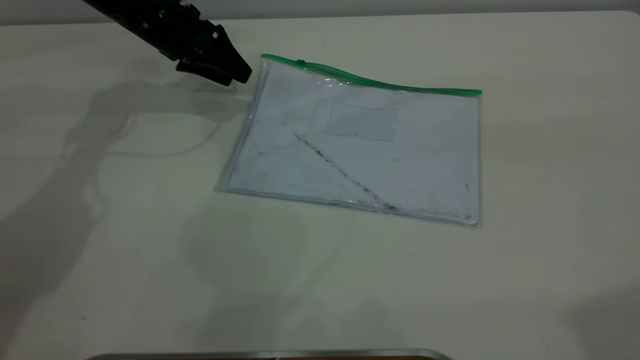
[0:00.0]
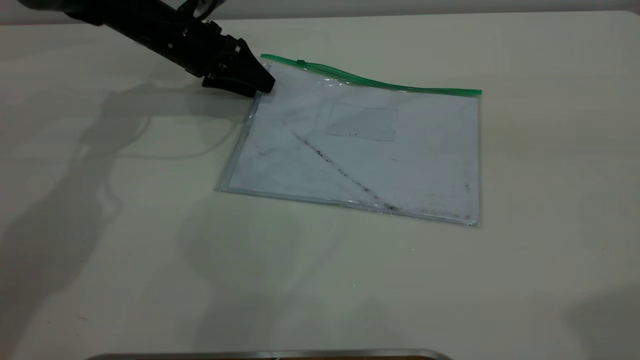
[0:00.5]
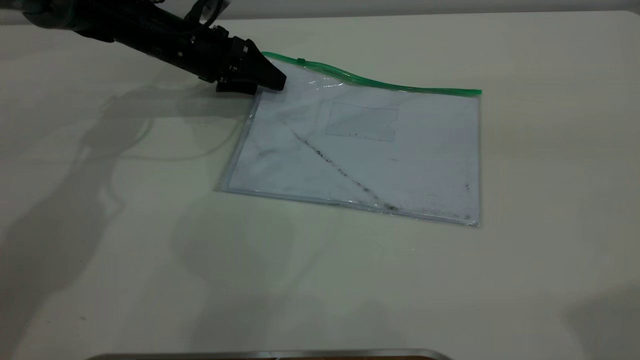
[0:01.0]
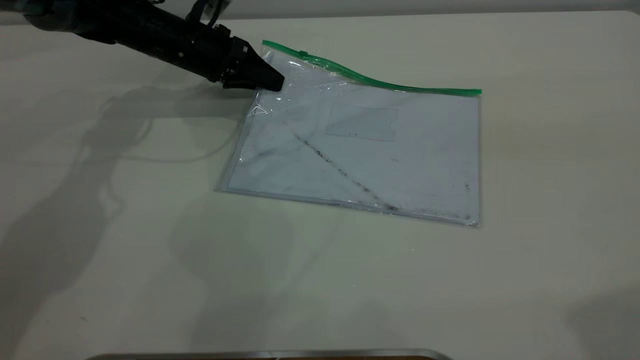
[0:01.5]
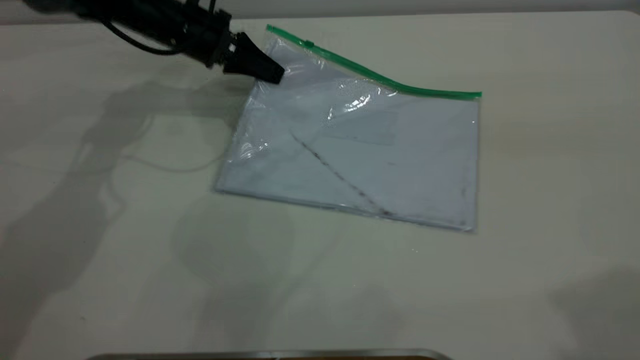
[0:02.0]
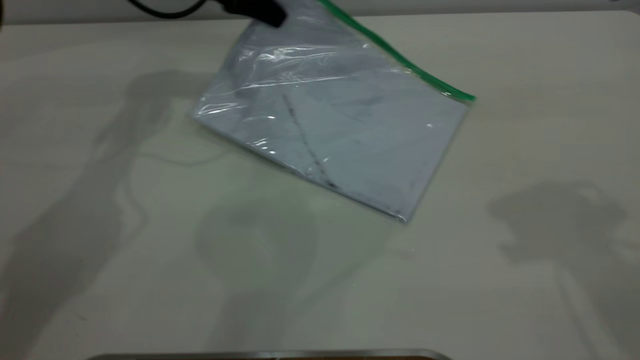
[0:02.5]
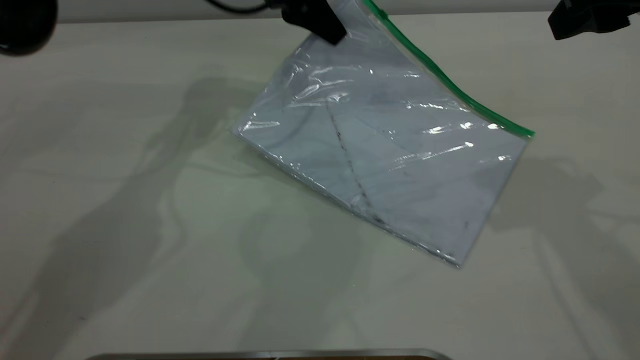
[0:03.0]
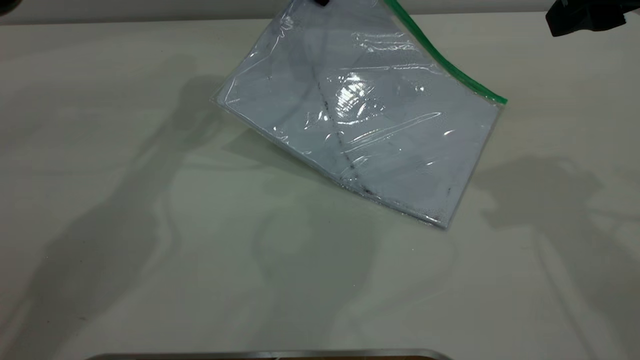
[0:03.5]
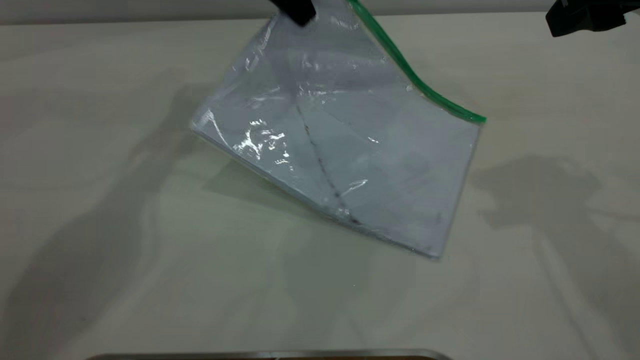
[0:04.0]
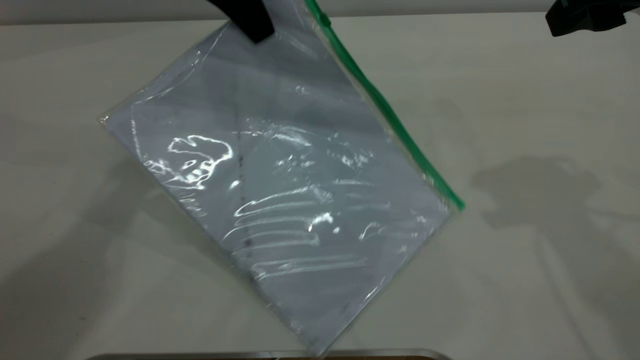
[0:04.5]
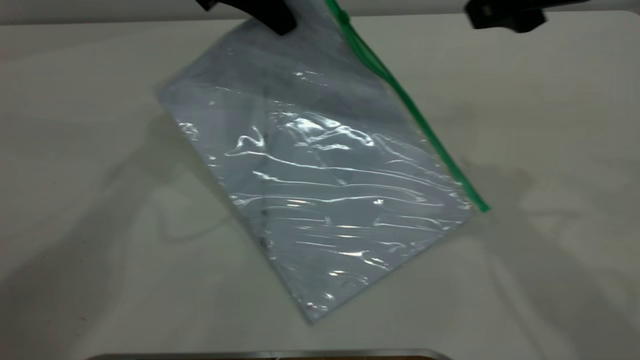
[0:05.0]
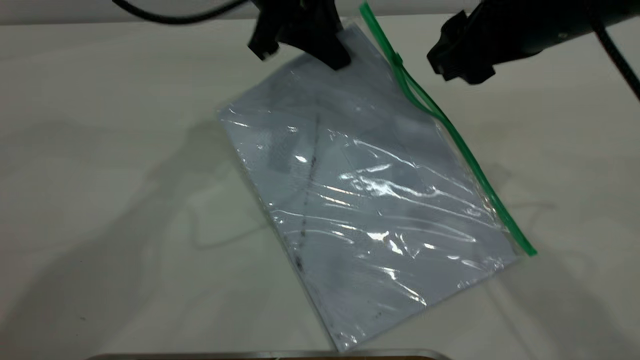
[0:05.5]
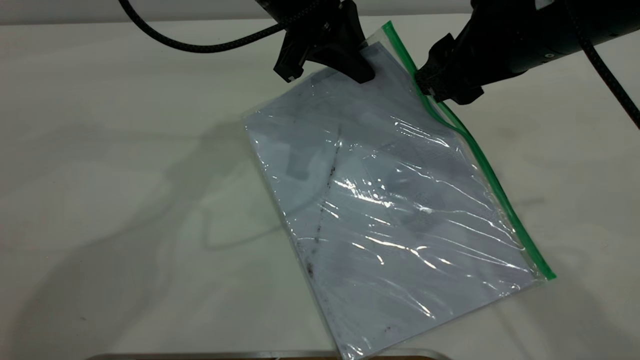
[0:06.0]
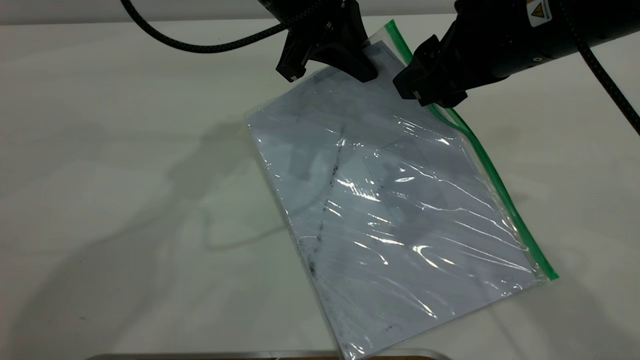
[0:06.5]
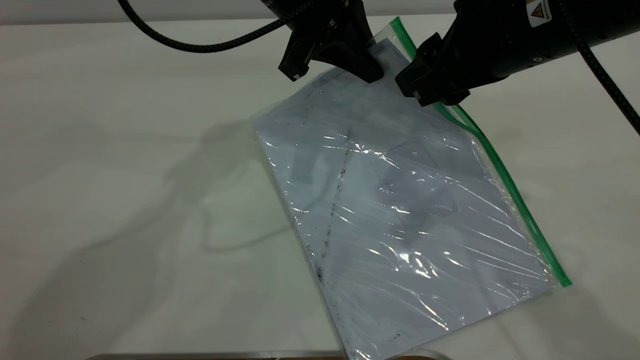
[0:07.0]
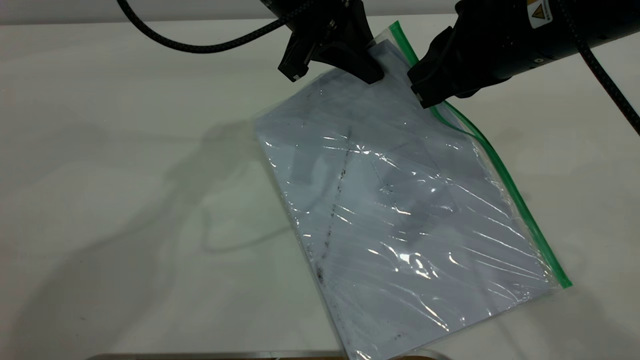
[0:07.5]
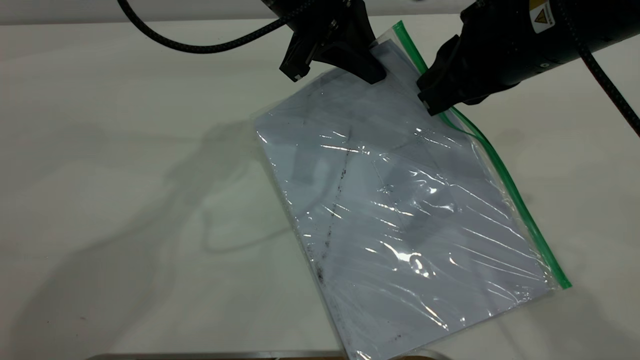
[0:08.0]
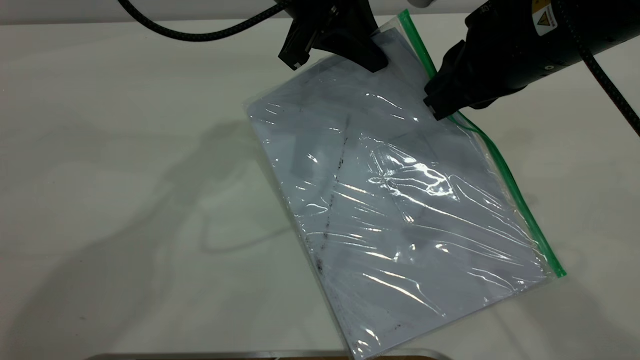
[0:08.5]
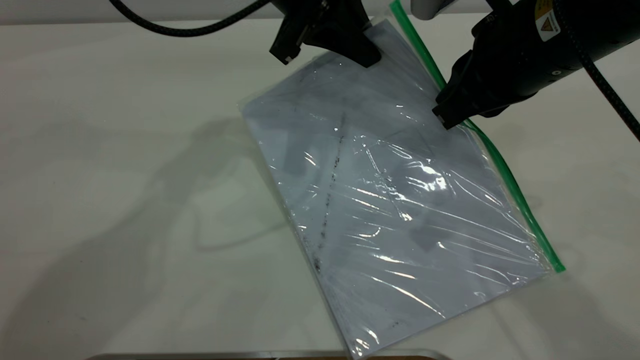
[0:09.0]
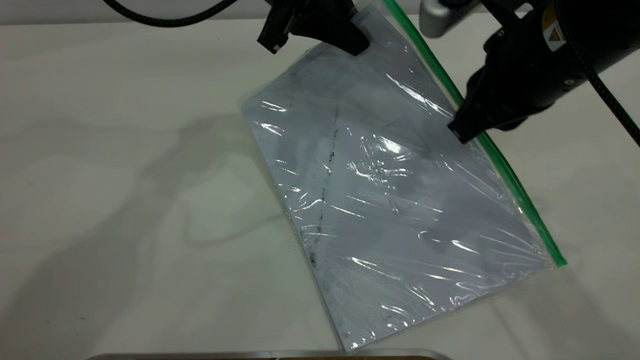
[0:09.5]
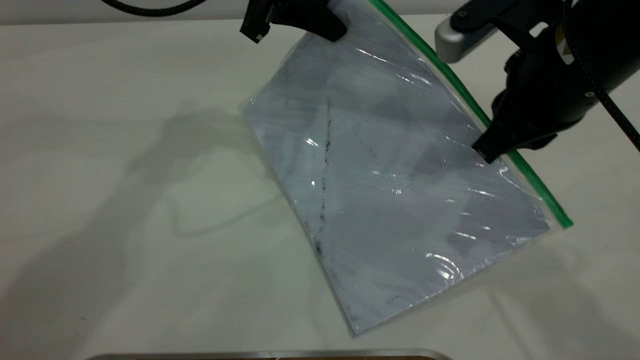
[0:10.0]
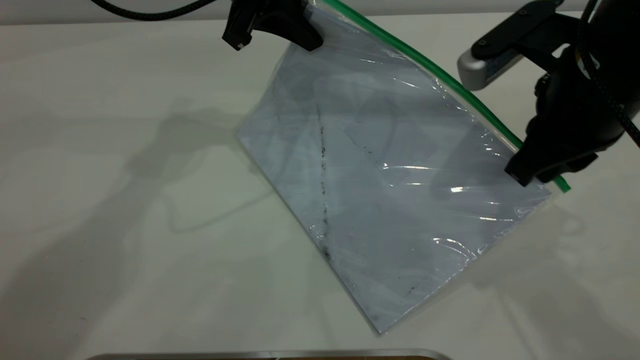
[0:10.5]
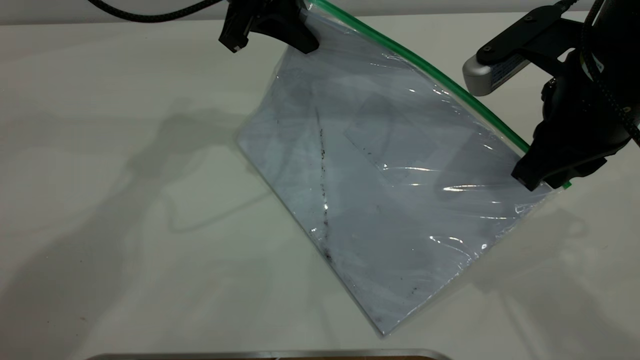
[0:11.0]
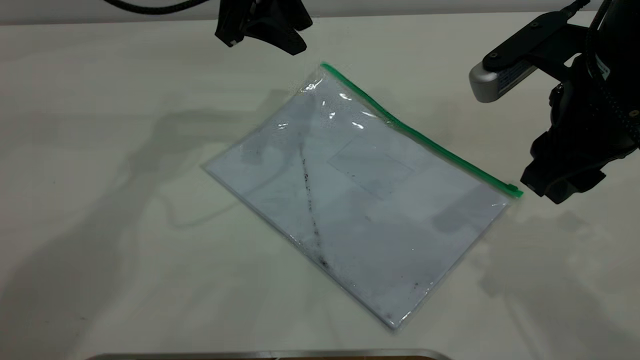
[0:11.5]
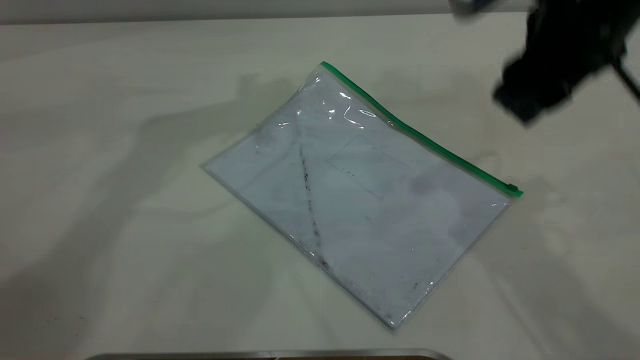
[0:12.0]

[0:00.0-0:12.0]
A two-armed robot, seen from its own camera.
Step, 0:00.0 to 0:02.0: Pick up the transparent plastic bag with the left gripper.
Step, 0:02.5 to 0:10.5: Pulling up the zipper on the transparent plastic bag with the right gripper to close it.
0:00.0 to 0:02.0: The left gripper closes up.
0:02.0 to 0:04.0: The right gripper is displaced forward and downward by approximately 20 cm. Meanwhile the left gripper heads upward and to the right, covering some 15 cm.
0:04.0 to 0:06.0: The left gripper moves backward, downward and to the right, approximately 10 cm. The right gripper moves to the left and downward, about 10 cm.
0:06.0 to 0:08.0: The right gripper closes up.
0:08.0 to 0:10.0: The left gripper travels to the left by roughly 5 cm.
0:10.0 to 0:12.0: The left gripper shifts roughly 10 cm upward, and opens its fingers, while the right gripper moves upward, some 5 cm, and opens its fingers.

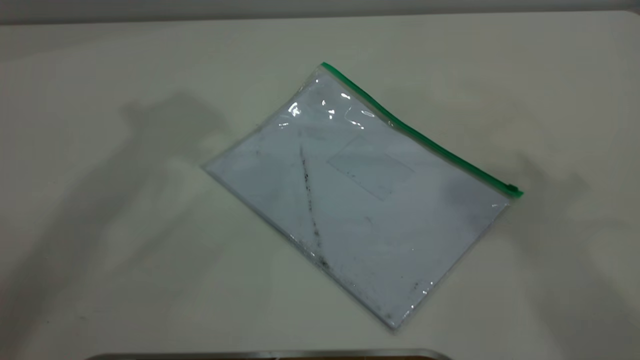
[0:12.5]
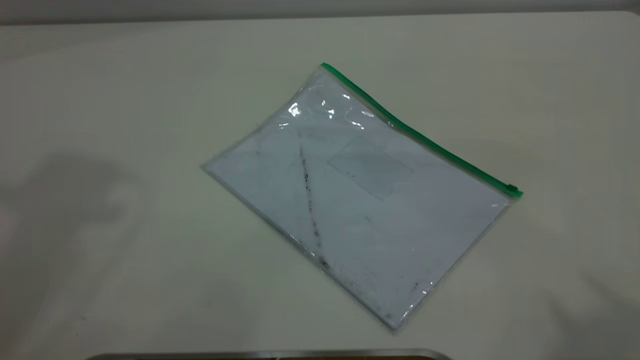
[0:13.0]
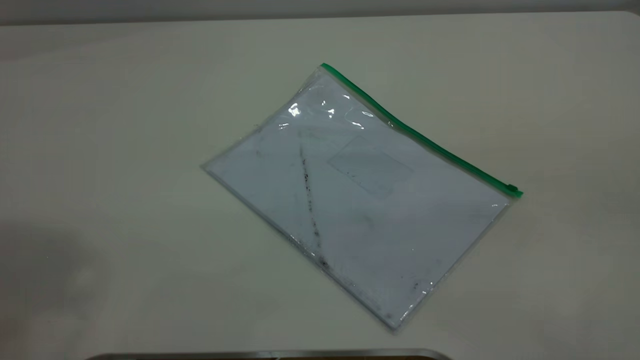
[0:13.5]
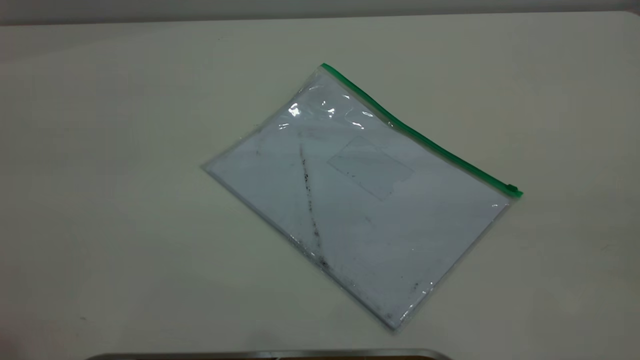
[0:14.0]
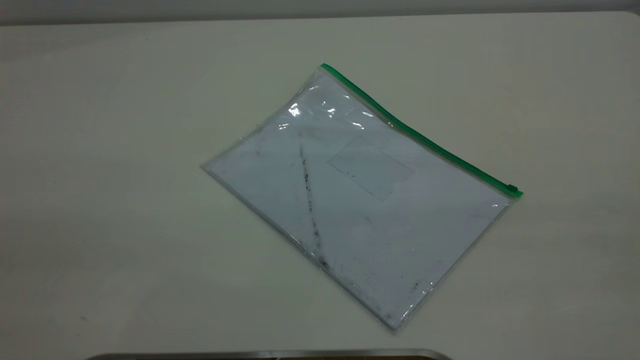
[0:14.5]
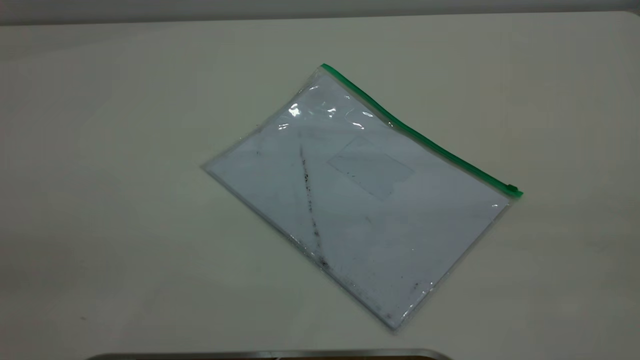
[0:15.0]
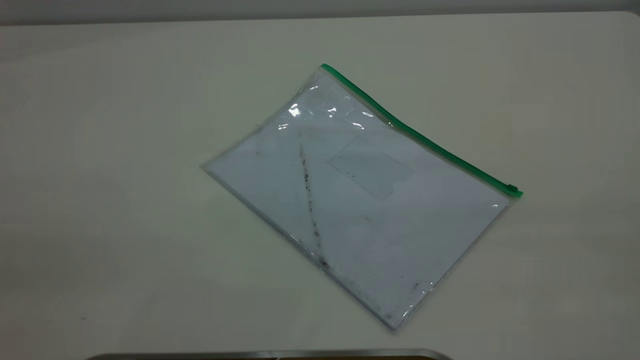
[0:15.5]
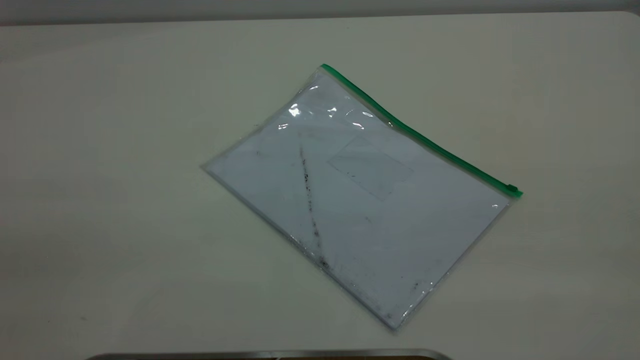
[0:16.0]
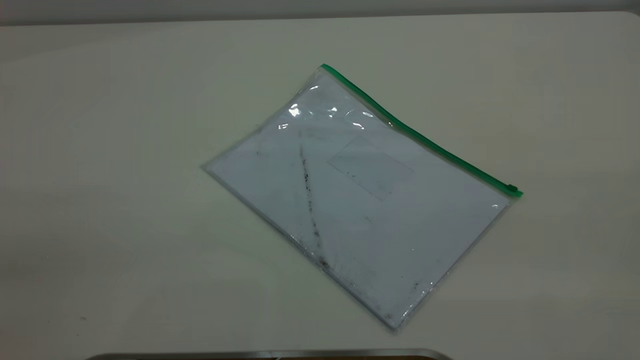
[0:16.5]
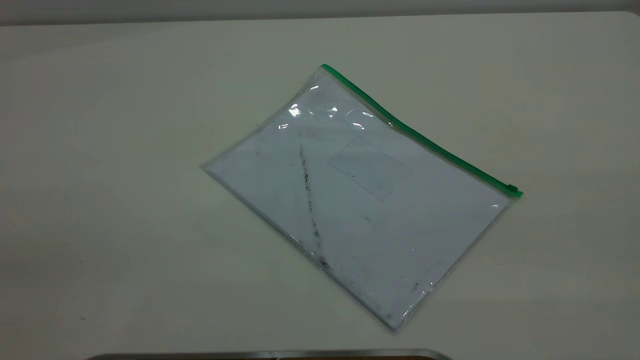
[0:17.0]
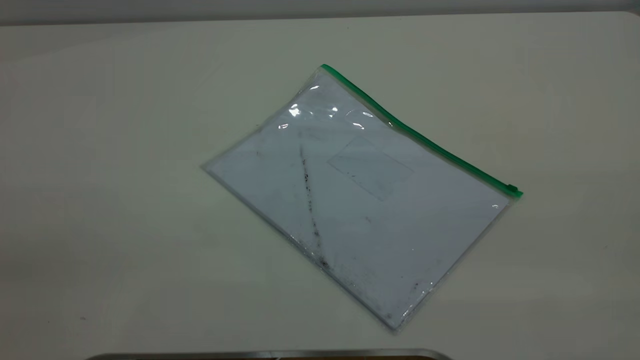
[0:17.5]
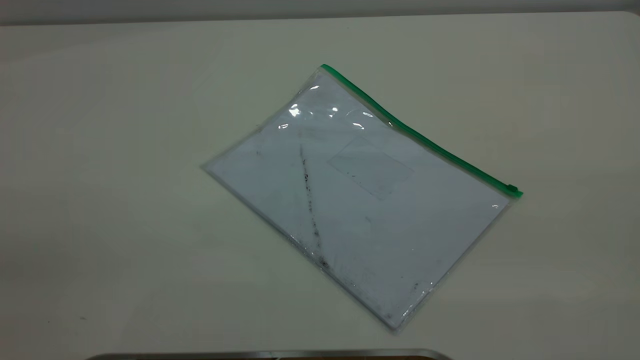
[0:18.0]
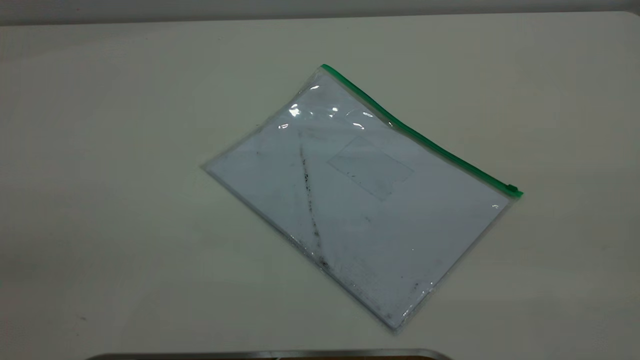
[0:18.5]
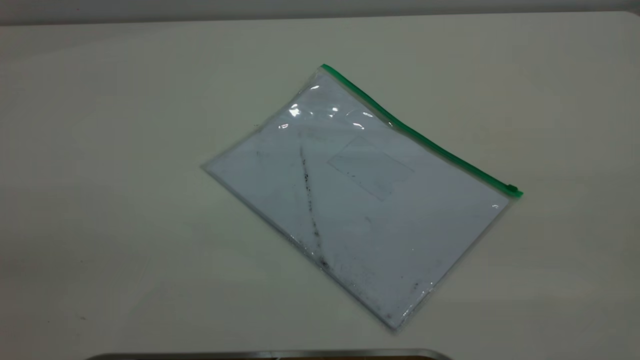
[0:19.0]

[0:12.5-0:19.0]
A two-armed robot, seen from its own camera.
0:17.0 to 0:19.0: The two grippers keep their place.

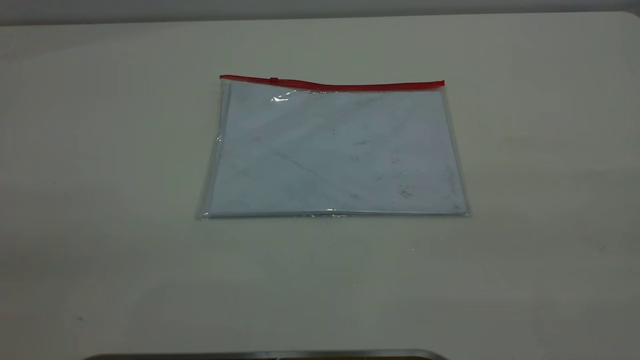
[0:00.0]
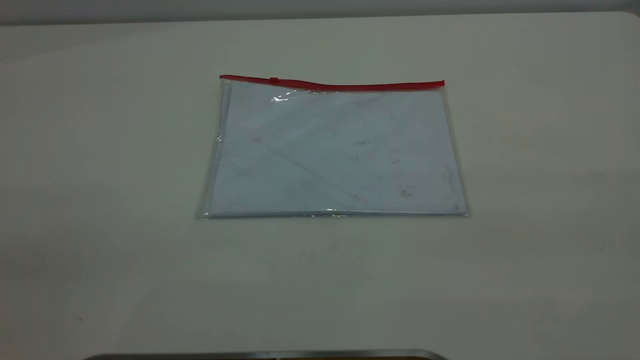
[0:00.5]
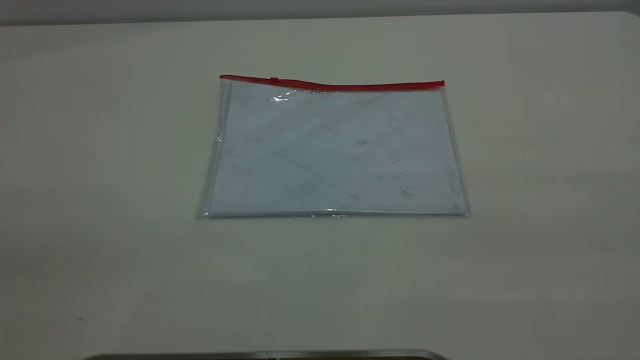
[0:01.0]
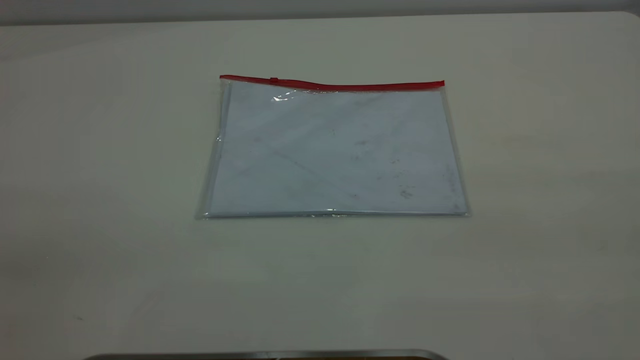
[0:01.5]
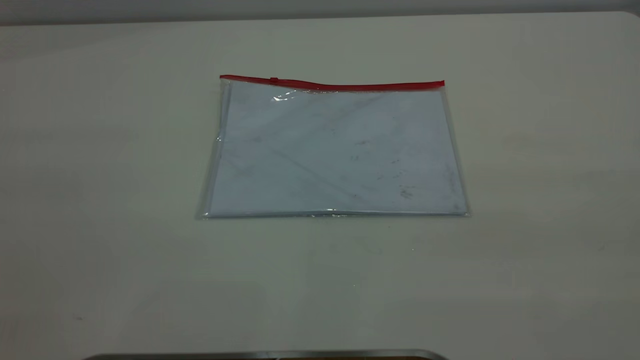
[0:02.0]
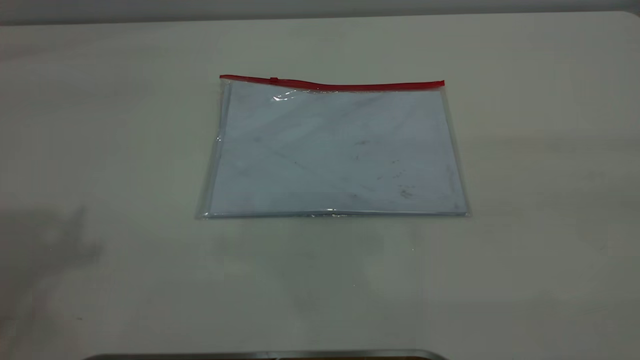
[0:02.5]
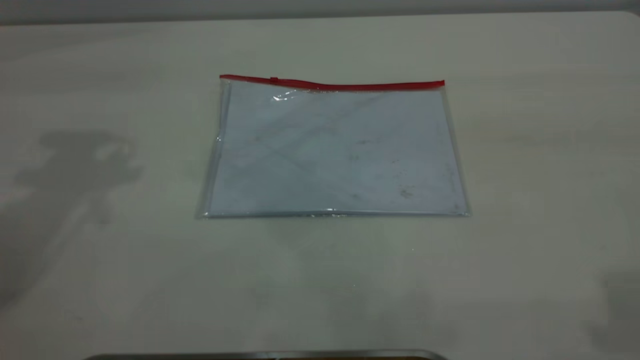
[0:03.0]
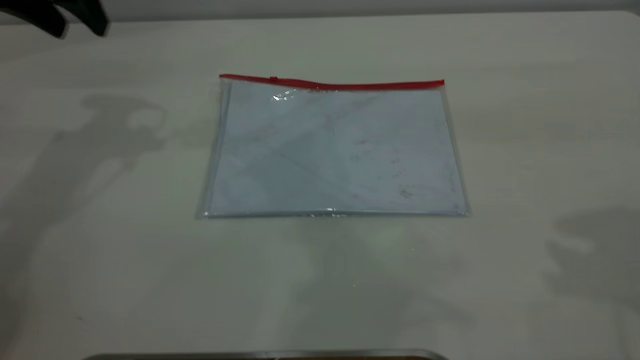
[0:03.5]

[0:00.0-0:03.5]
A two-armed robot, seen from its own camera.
0:02.0 to 0:03.5: The left gripper moves forward and downward, about 40 cm.
